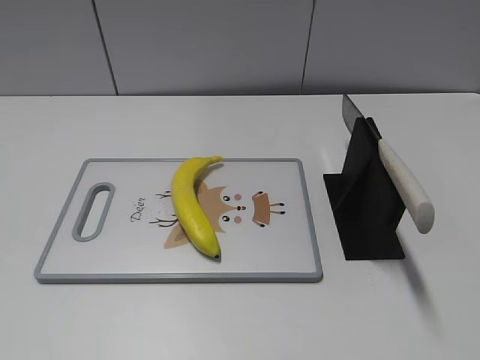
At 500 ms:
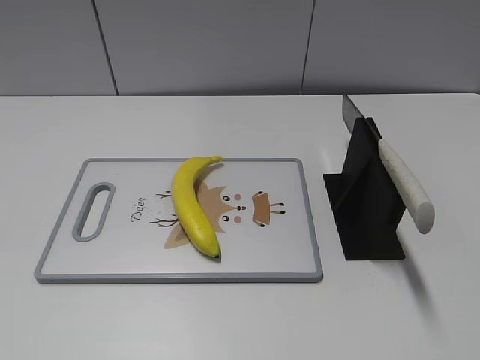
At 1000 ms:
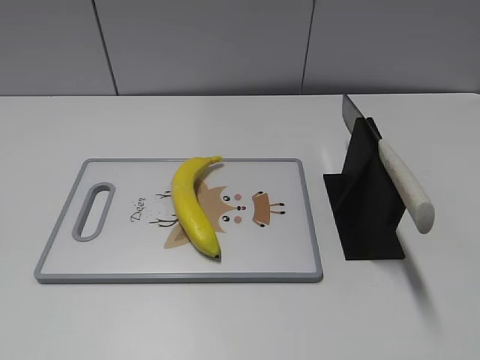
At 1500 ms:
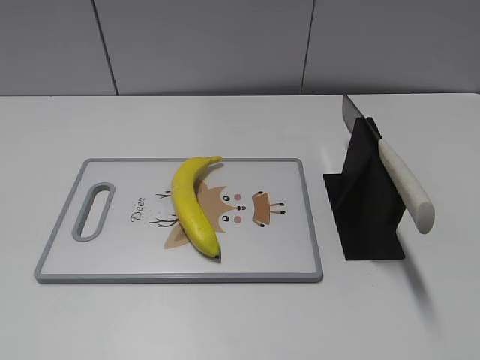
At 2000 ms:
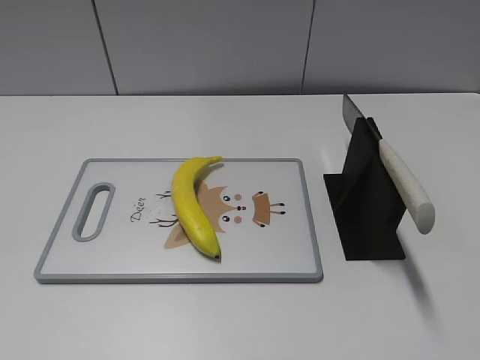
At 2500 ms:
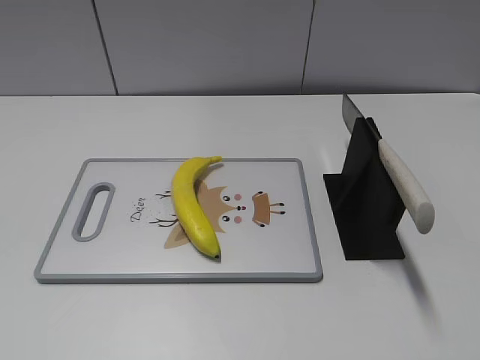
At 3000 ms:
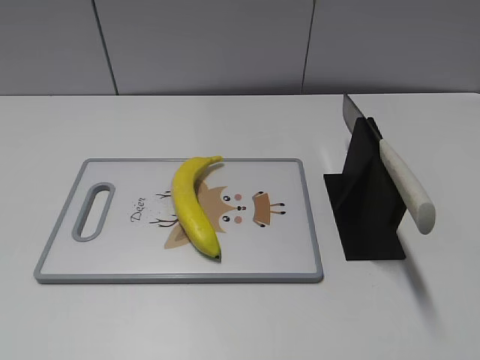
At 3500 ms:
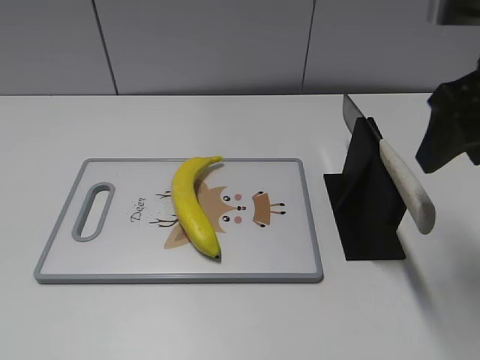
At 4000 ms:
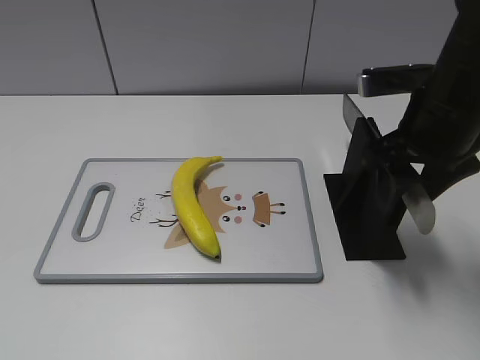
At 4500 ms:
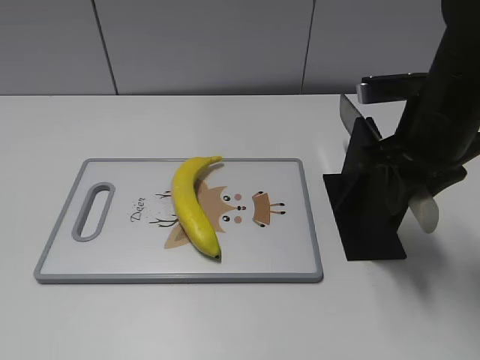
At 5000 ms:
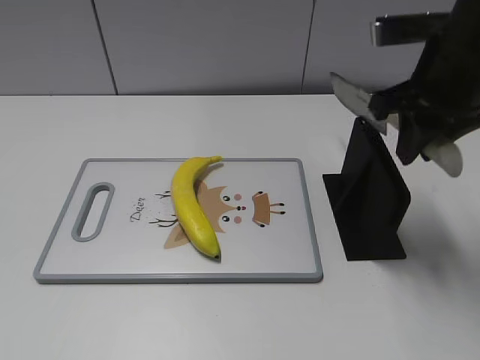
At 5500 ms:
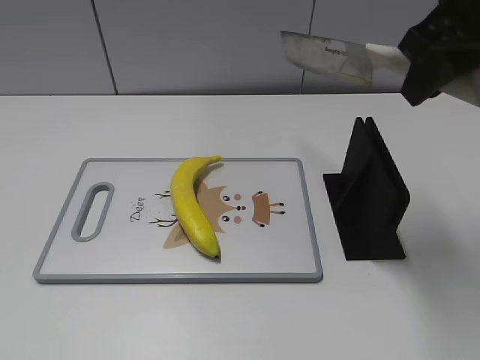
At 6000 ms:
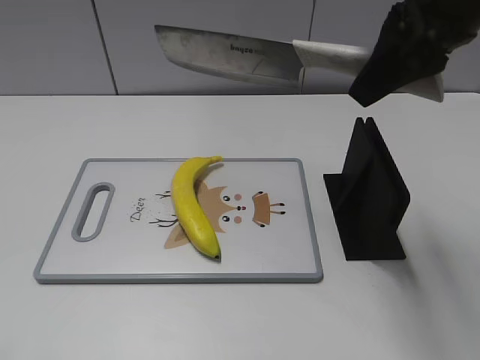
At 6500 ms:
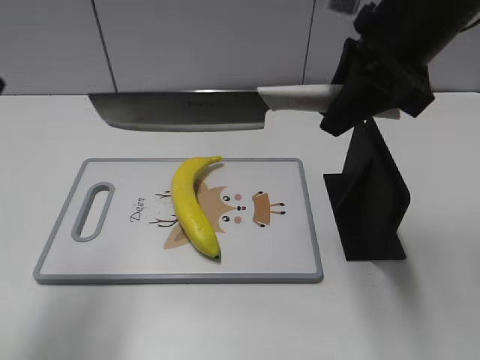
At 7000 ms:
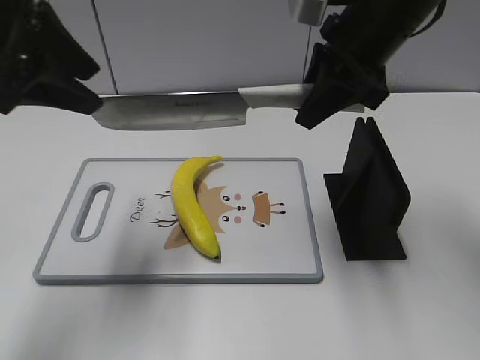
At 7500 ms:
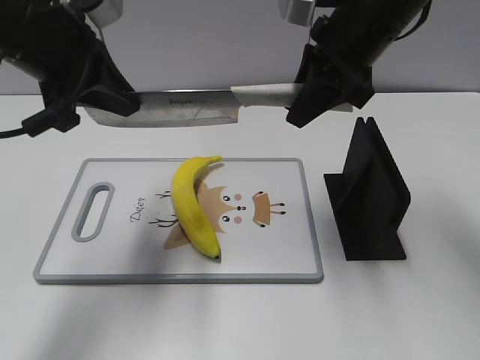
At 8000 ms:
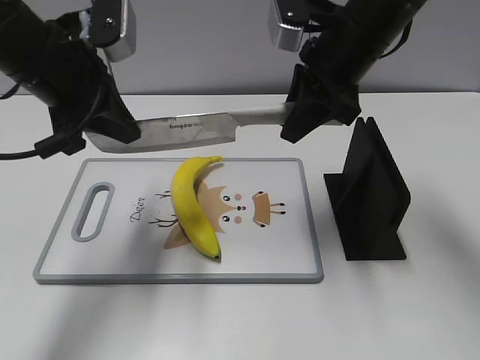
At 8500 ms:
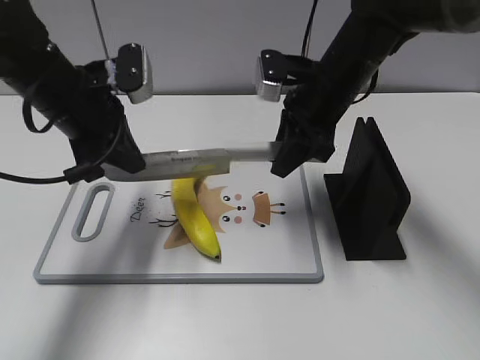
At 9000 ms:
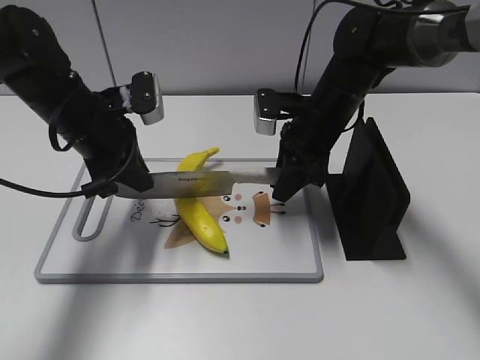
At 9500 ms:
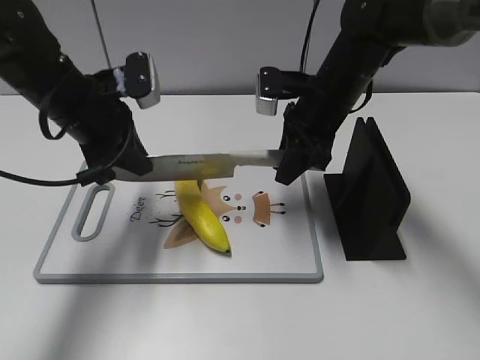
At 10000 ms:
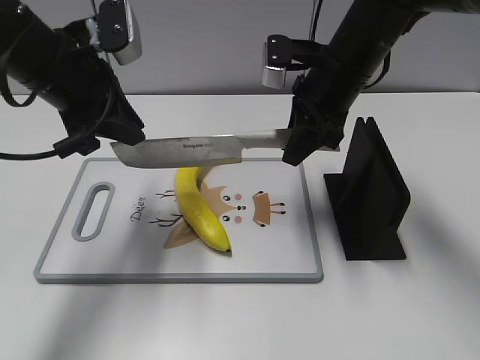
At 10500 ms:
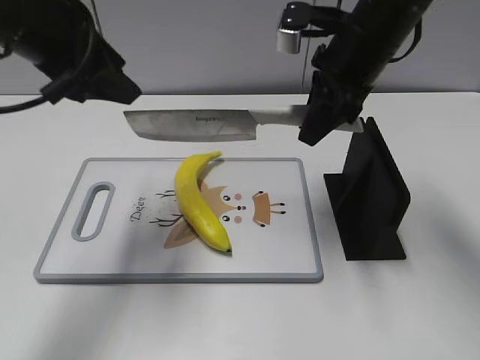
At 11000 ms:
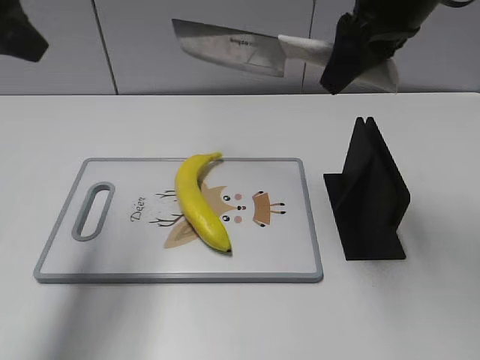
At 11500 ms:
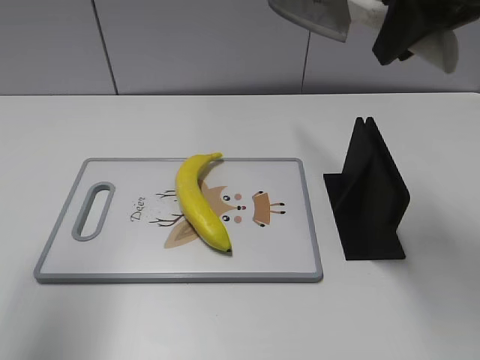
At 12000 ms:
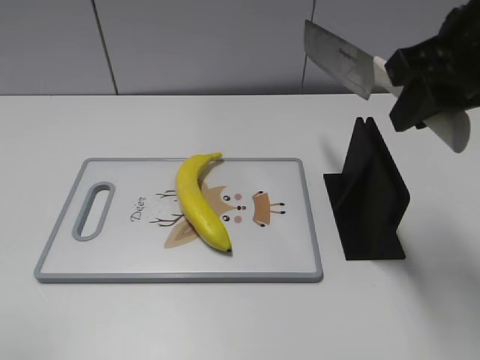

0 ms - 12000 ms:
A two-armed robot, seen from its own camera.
Task of the whole recording: cut plastic banana.
Step, 0 ms - 5000 ms: Grab the knife handle with your right hand.
Step, 6000 ms - 9000 ms: Lift the knife with your right hand.
Step, 9500 ms - 11000 ms: Cut the banana with your right hand.
2000 ms - 4000 ms: The right gripper heads forward, covering about 30 cm.
4000 ms - 6000 ms: The left gripper is displaced forward by approximately 5 cm, while the right gripper heads upward, covering some 10 cm, and closes.
6000 ms - 8000 ms: The left gripper shifts some 30 cm forward and to the right, and closes its fingers. The right gripper heads downward and forward, covering about 15 cm.
8000 ms - 10000 ms: The left gripper travels downward and back again, approximately 10 cm each way.
10000 ms - 12000 ms: The left gripper goes approximately 25 cm backward, to the left and upward, and opens up. The right gripper moves backward, upward and to the right, roughly 20 cm.

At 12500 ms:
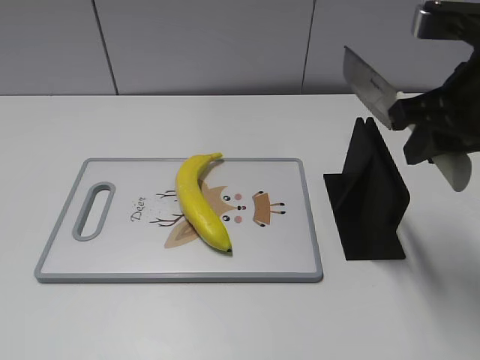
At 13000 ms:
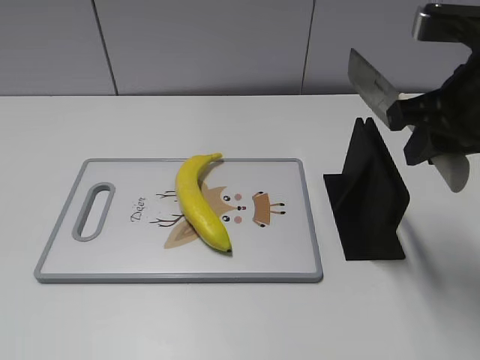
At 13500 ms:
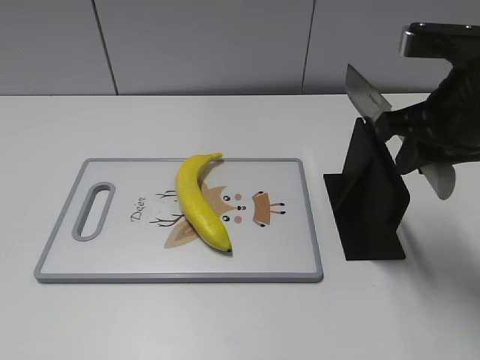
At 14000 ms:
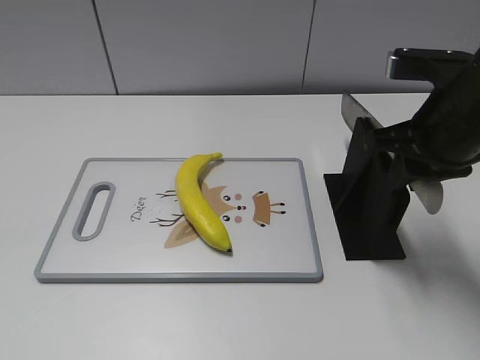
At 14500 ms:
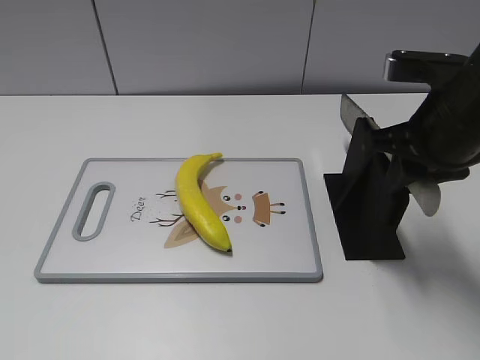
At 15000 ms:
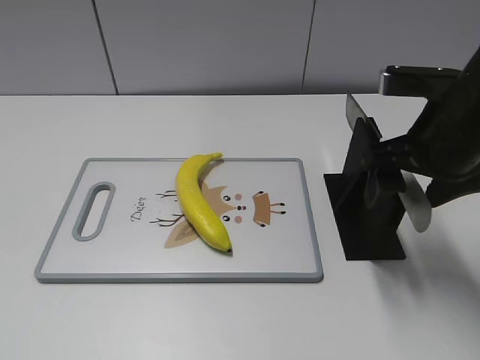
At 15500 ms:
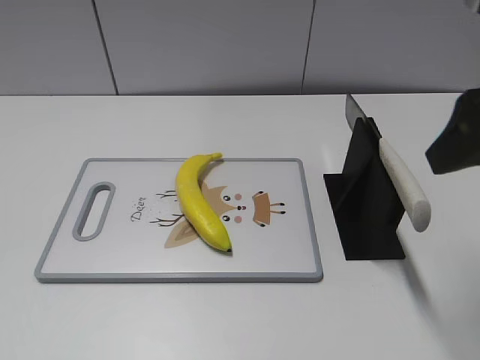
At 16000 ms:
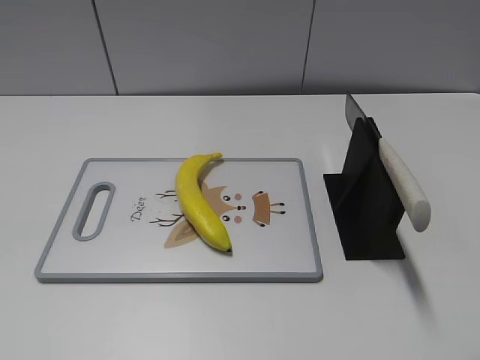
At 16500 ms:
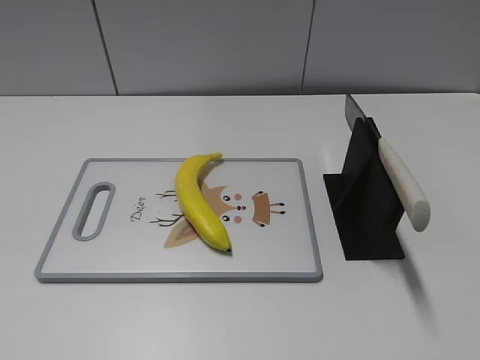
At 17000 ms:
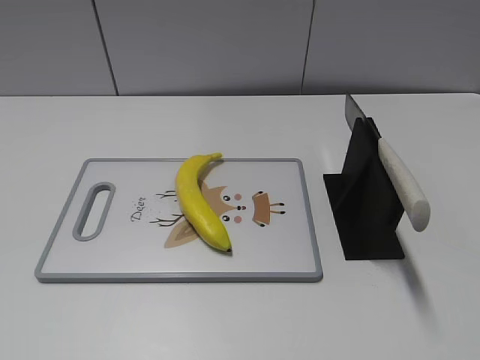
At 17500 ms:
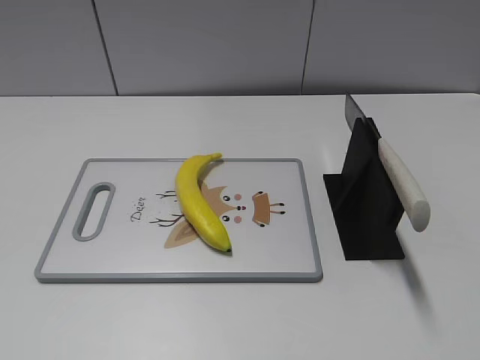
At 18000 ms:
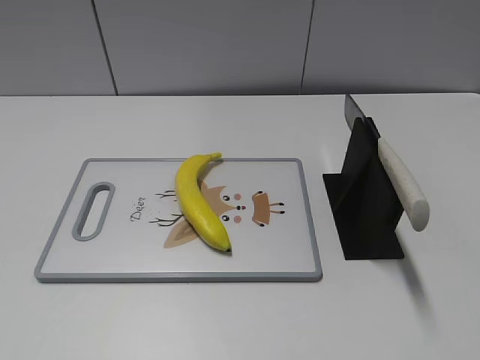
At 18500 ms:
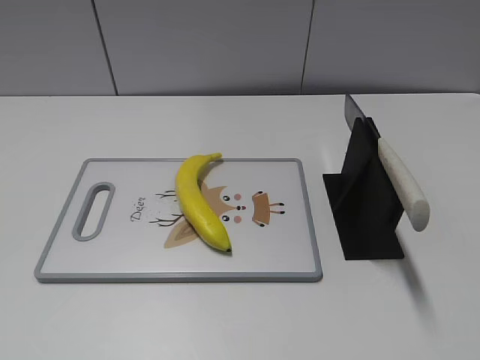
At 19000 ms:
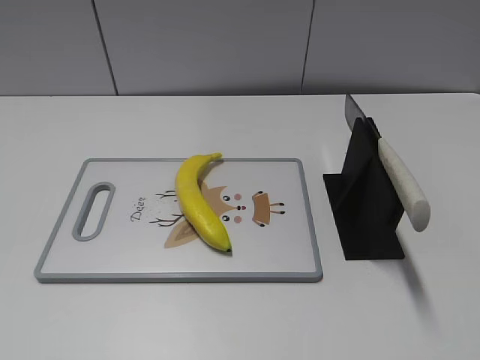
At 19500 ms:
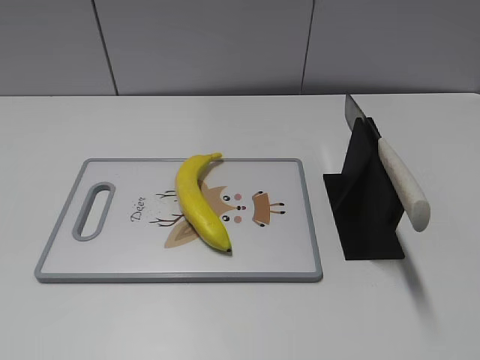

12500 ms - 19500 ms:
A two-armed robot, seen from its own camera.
Task of the whole recording: cut plastic banana.
Step, 12500 ms - 18000 ms: Place the knife on the storage rack with your right hand.
12500 ms - 14500 ms: The right gripper shifts by approximately 5 cm.
14500 ms - 16000 ms: The right gripper shifts about 20 cm backward and upward, and opens up.

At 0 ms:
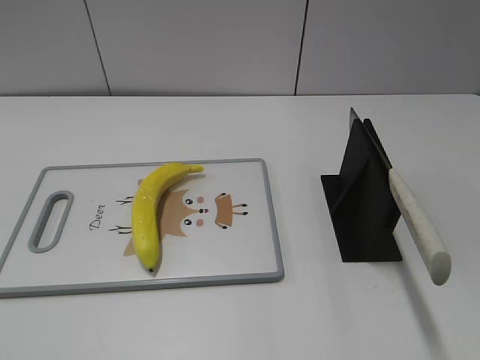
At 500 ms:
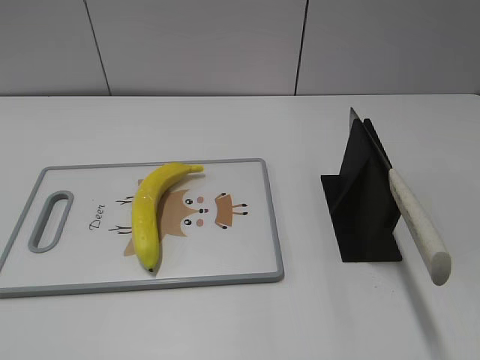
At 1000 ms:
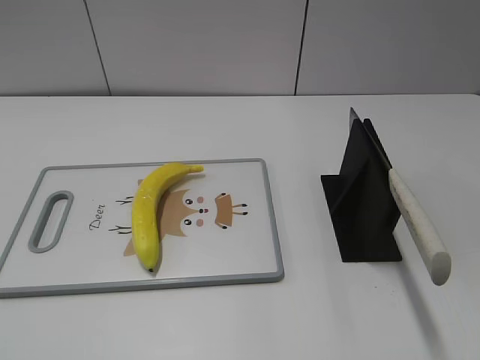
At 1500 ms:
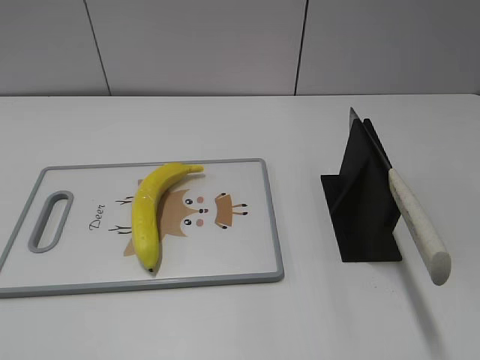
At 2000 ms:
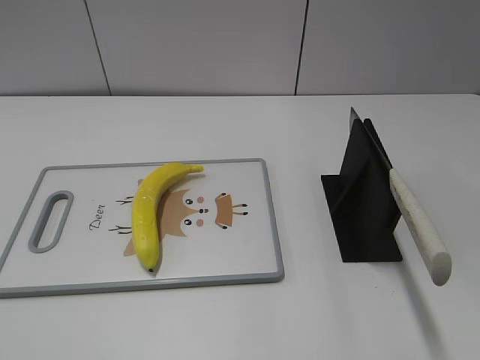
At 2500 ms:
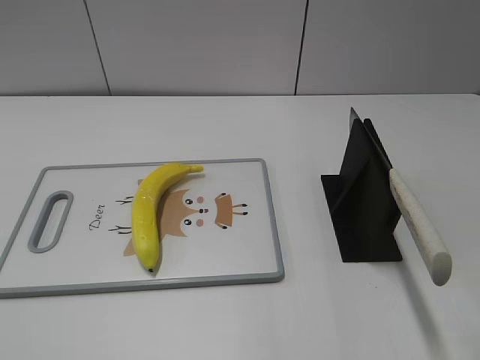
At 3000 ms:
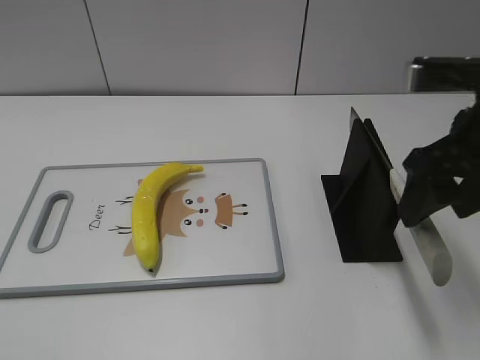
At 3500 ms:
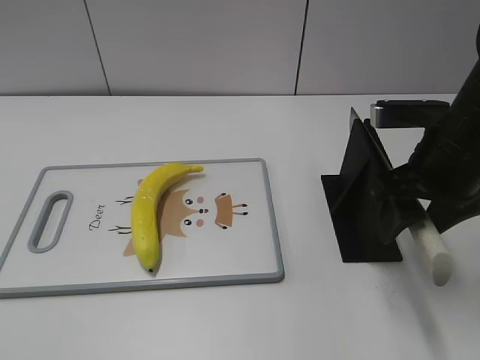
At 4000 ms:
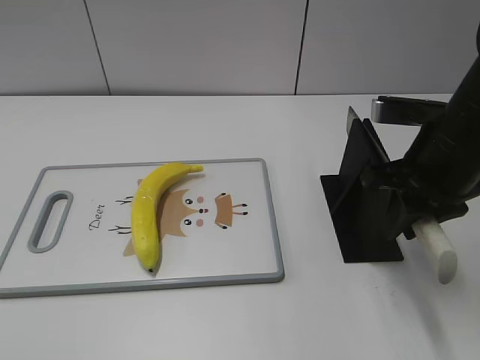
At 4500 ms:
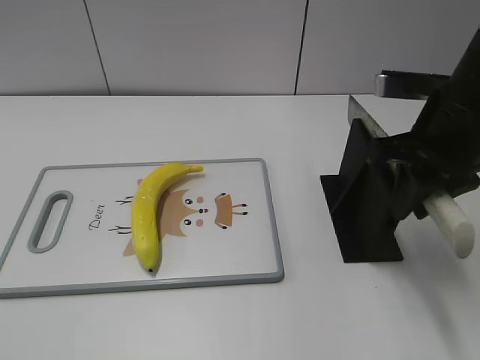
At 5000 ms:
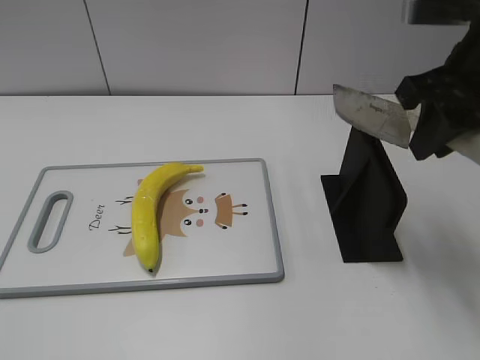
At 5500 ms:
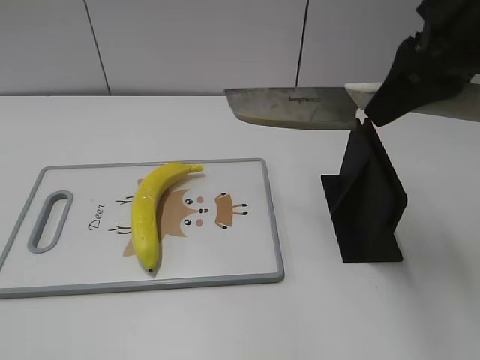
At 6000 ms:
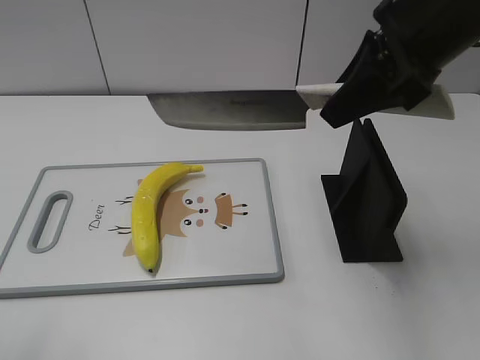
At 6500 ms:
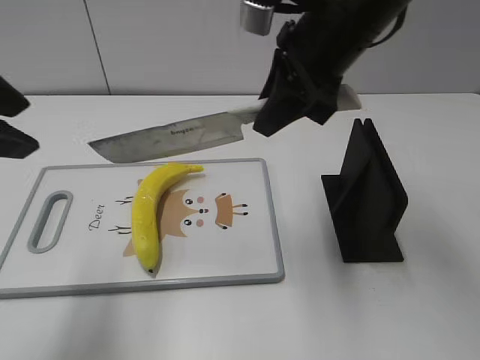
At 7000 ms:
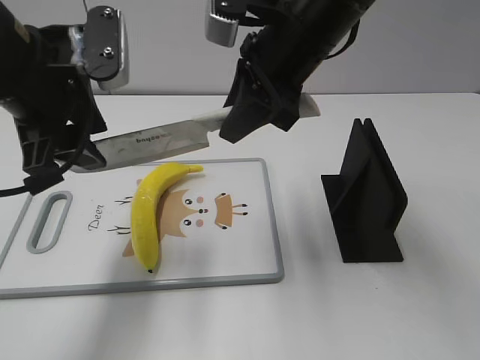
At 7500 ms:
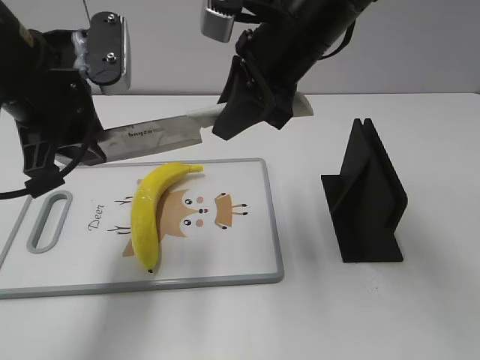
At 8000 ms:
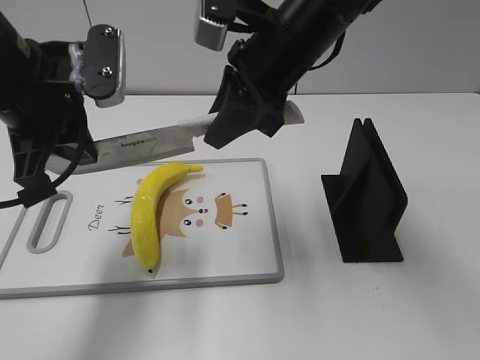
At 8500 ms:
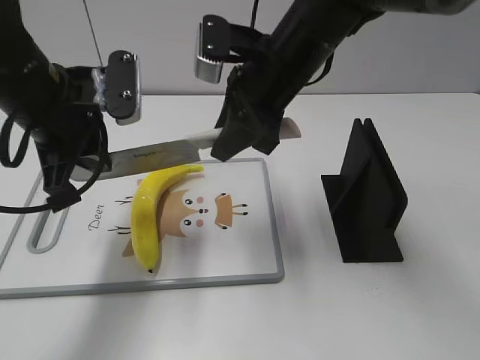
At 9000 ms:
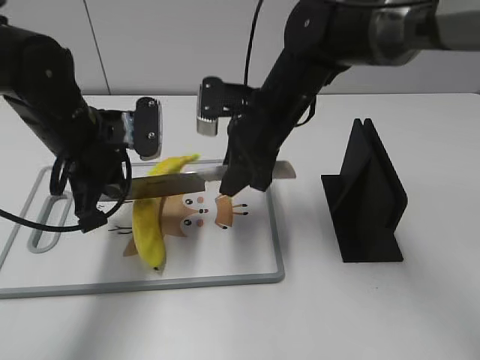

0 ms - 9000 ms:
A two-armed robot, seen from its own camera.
Task of the whole recording: cut plastic banana.
Step, 0 ms - 4500 ms: Grab the knife handle with your right hand.
2000 ms - 4500 ms: The right gripper goes some 30 cm forward, downward and to the left, and closes.
4500 ms - 7000 ms: The left gripper shifts some 30 cm forward and to the right, while the right gripper heads to the left and forward, covering approximately 15 cm.
7000 ms - 9000 ms: Both grippers travel together downward, about 10 cm. The left gripper closes its fingers.
